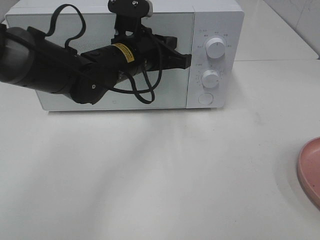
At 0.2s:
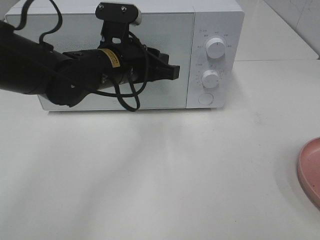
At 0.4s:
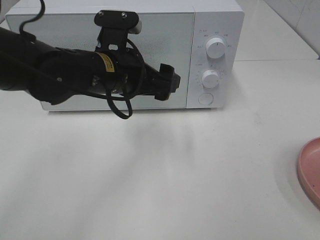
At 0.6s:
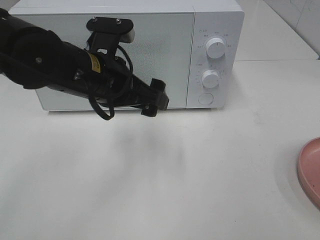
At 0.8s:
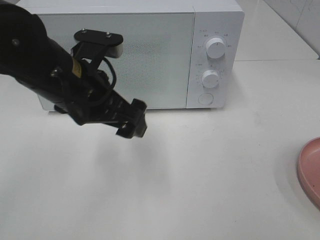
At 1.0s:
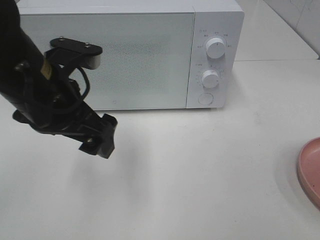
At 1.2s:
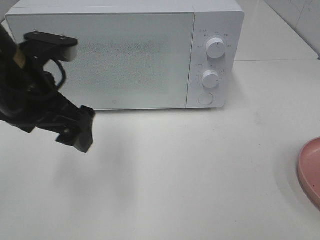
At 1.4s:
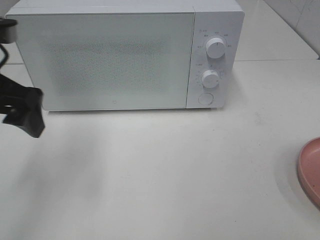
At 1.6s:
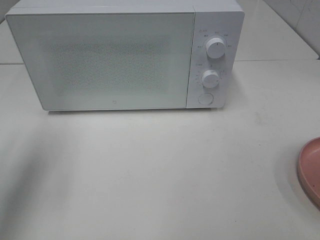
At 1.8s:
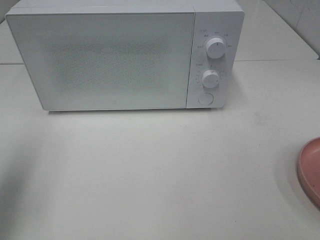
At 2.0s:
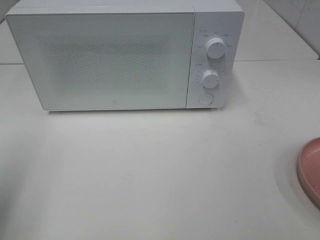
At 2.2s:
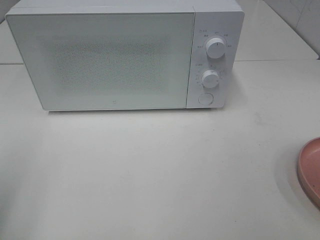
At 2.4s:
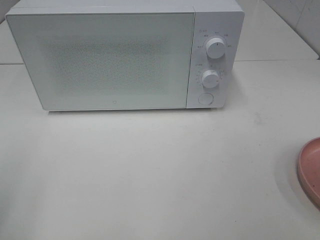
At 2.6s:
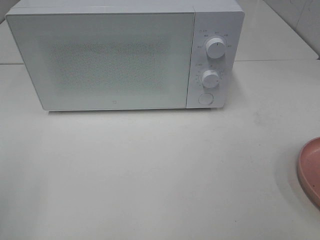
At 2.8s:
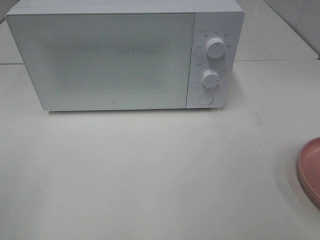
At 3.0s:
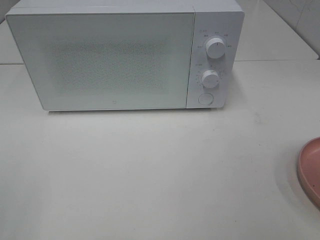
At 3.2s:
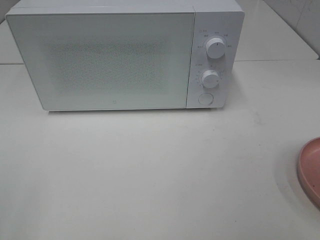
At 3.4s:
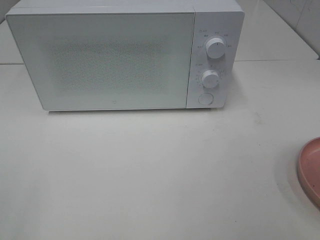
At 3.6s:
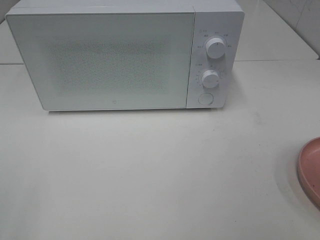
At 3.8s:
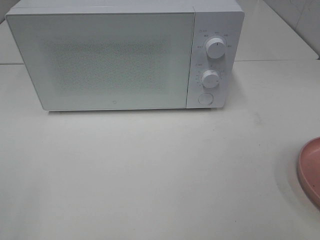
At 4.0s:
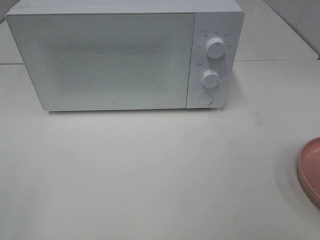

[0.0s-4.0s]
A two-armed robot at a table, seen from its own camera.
Task of the whole recording: Heat the burger.
0.0s to 1.4s: The left gripper moves to the left, backward and upward, some 20 cm, and opens its fingers.
1.4s to 2.6s: The left gripper goes roughly 20 cm backward and to the left.

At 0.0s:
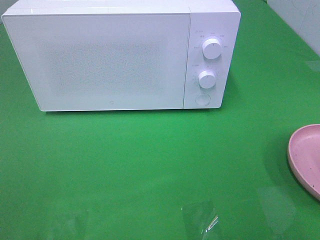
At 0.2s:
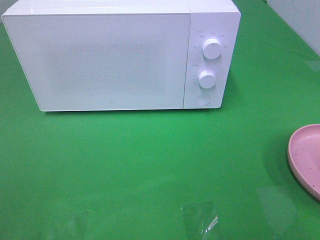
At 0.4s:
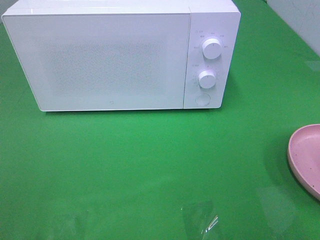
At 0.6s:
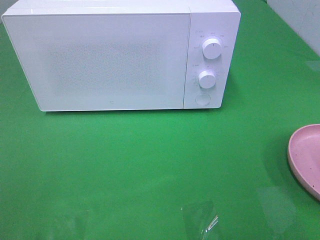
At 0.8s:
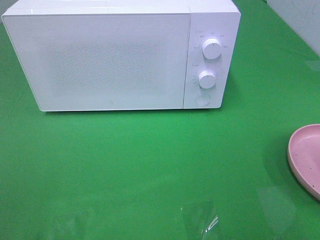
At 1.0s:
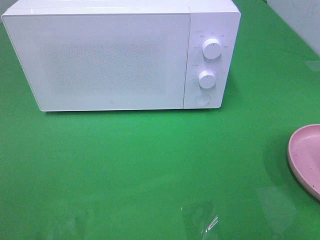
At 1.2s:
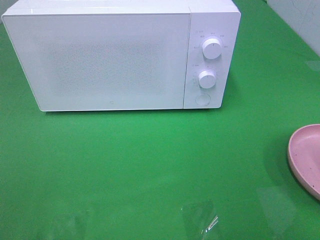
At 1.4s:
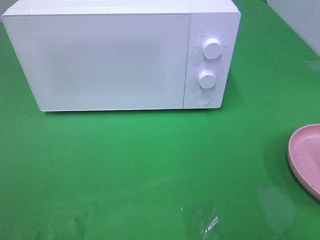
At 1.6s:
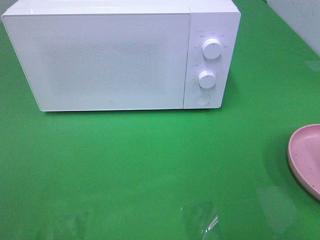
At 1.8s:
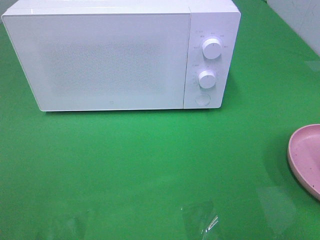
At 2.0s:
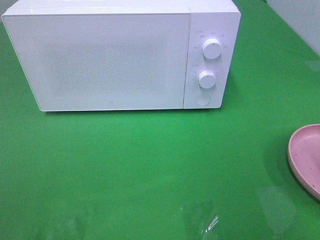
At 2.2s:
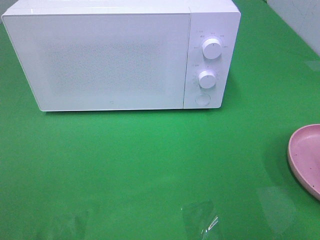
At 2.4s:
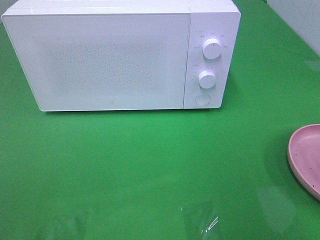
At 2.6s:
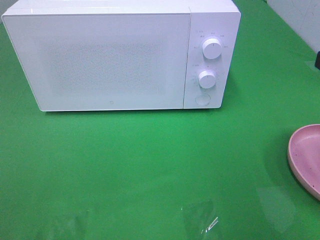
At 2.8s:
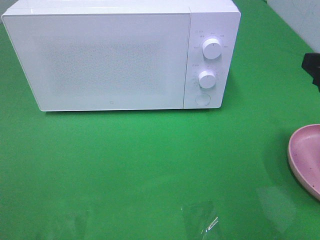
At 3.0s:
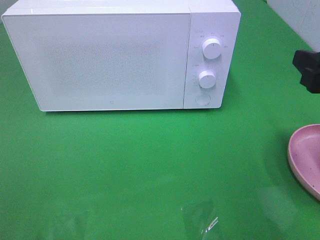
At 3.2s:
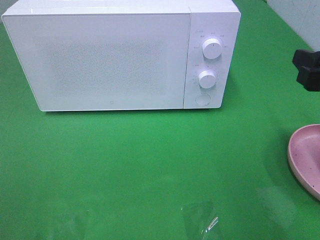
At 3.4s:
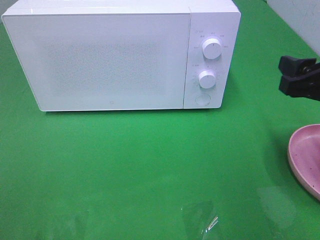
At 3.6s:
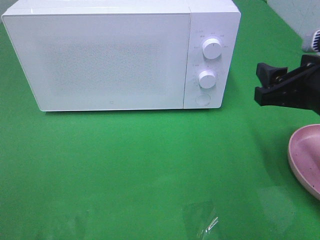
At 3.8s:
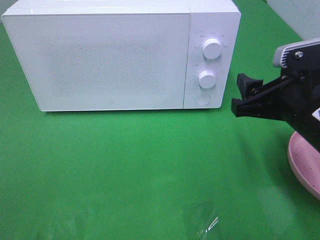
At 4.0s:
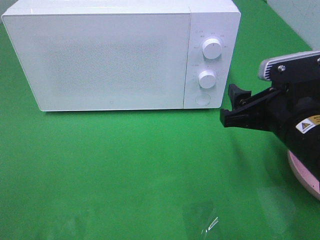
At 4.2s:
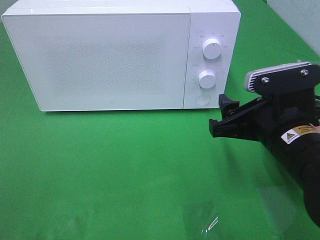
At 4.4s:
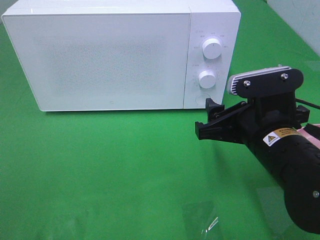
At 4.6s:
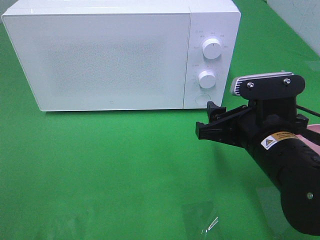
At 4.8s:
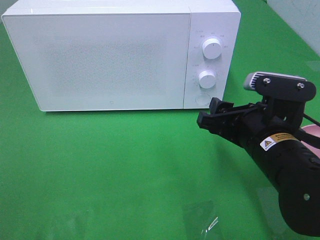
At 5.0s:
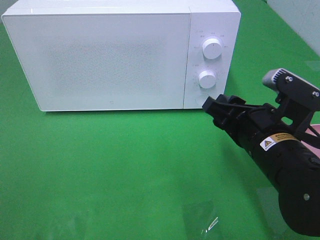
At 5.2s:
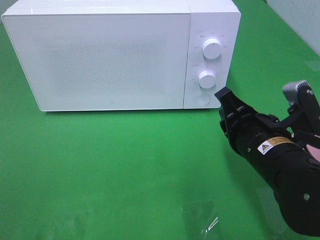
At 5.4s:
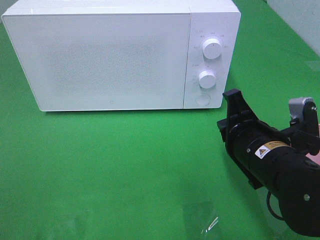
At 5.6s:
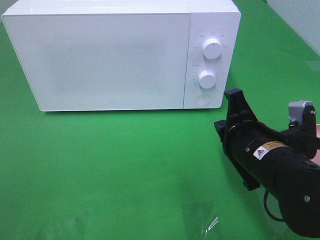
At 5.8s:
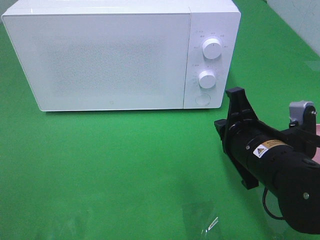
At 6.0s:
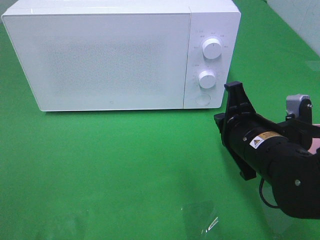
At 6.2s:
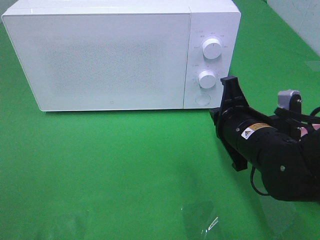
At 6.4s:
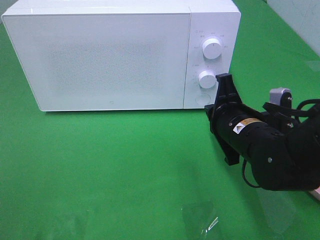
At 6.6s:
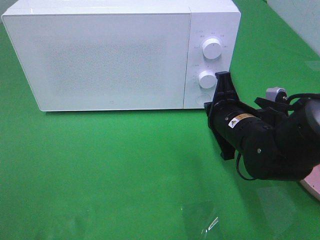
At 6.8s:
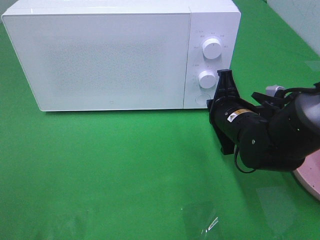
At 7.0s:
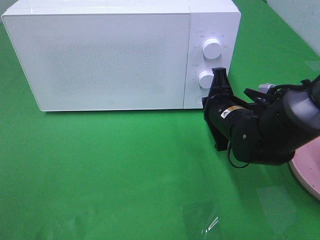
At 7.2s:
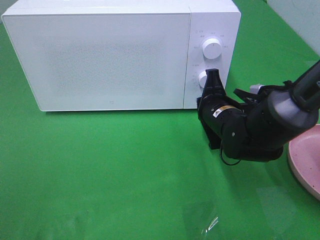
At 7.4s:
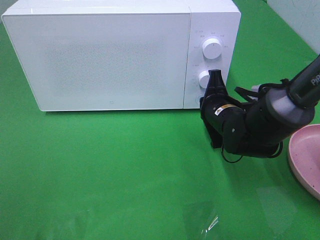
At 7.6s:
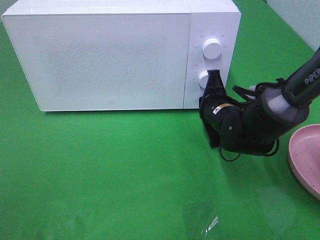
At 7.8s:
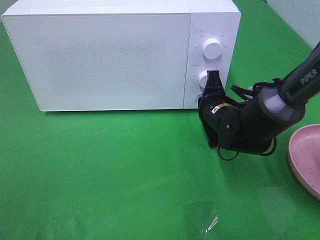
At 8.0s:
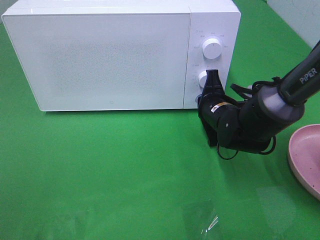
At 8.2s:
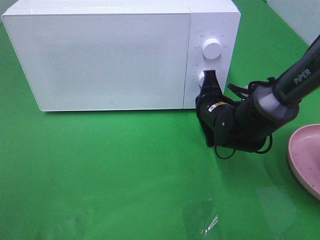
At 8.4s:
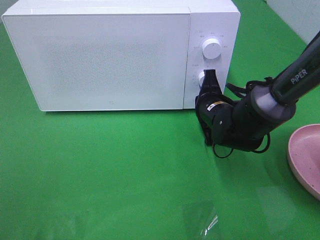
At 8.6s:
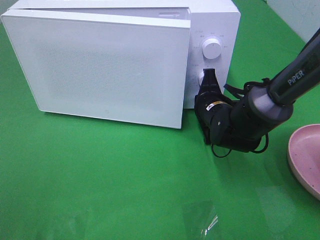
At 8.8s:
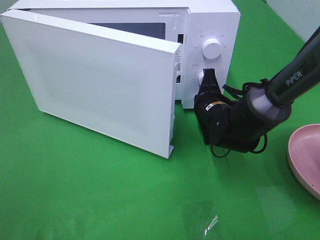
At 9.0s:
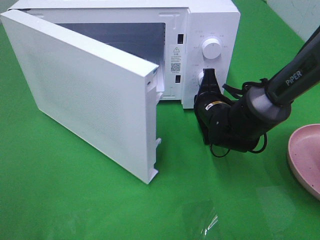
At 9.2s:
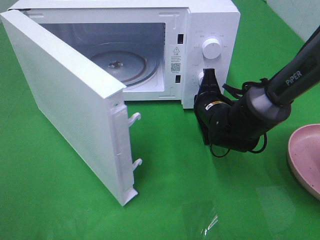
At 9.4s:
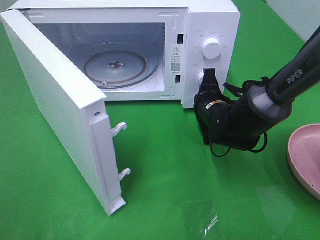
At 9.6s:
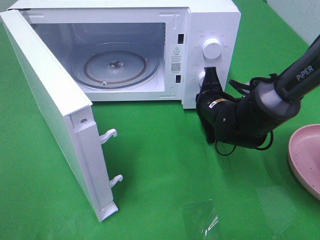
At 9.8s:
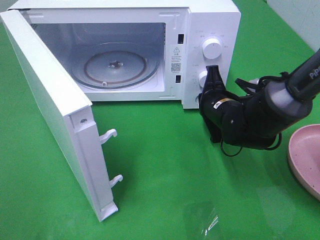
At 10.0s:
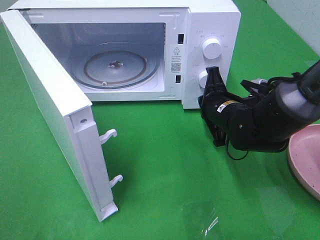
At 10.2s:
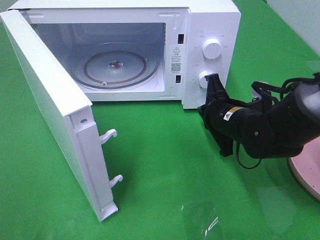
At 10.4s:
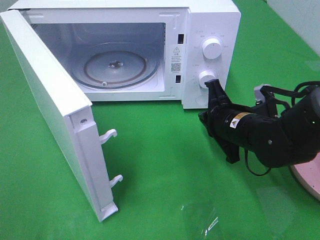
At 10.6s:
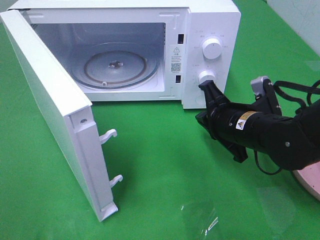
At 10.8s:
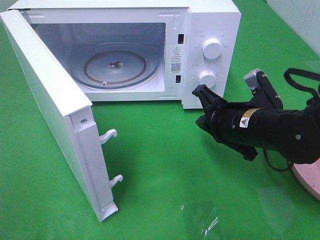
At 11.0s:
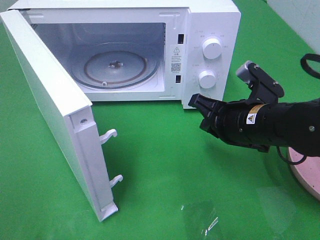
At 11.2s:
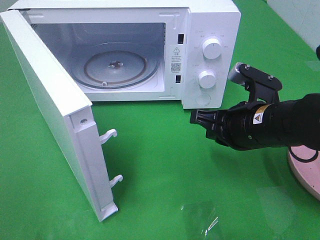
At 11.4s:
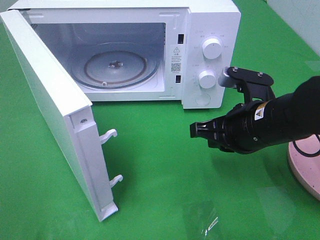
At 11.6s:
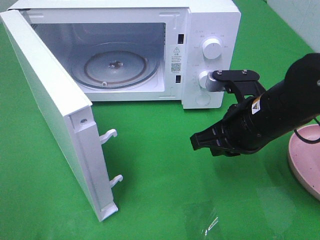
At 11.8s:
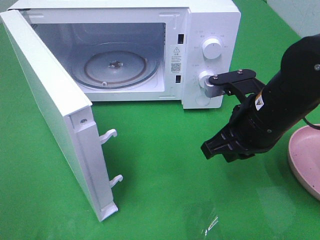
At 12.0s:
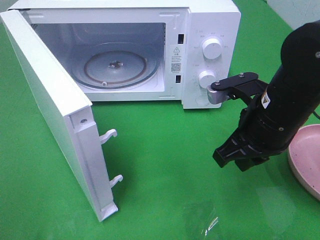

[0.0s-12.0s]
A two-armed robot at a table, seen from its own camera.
Task of the whole recording: Heat the burger.
Step, 0.0s to 10.0s: Right hand: press the switch.
1.6s to 3.0s: The right gripper travels forward and downward by roughly 15 cm.
3.0s to 4.4s: The right gripper moves to the left and downward, about 15 cm.
4.4s to 6.0s: The right gripper closes its fingers.
6.0s to 7.6s: The right gripper travels forward and downward by some 15 cm.
9.0s to 10.4s: The right gripper shifts about 5 cm backward.
10.4s to 12.0s: The right gripper is displaced upward by some 10 cm.

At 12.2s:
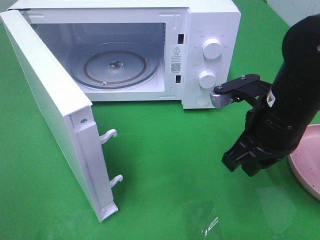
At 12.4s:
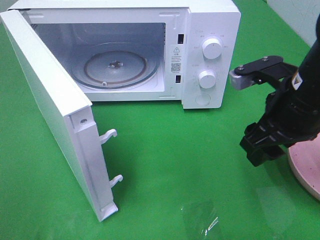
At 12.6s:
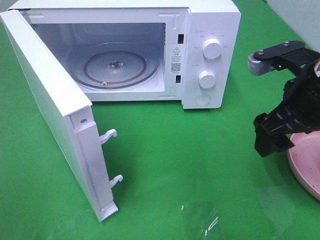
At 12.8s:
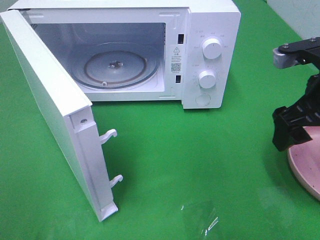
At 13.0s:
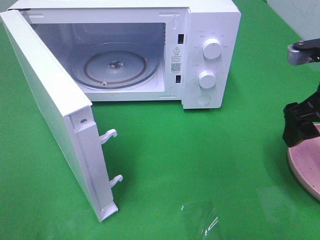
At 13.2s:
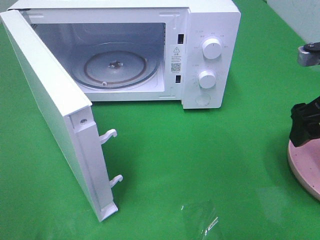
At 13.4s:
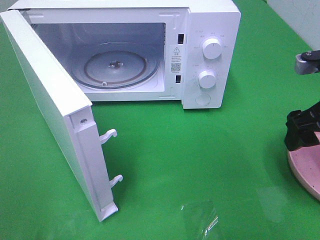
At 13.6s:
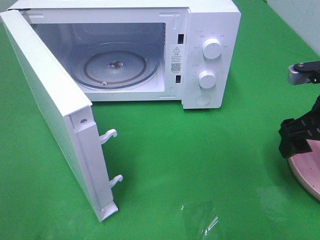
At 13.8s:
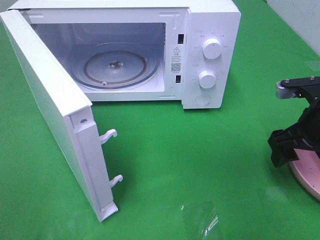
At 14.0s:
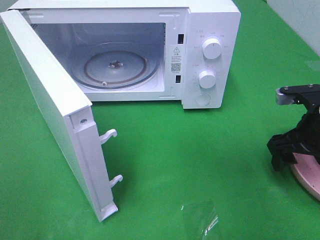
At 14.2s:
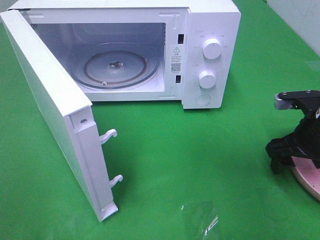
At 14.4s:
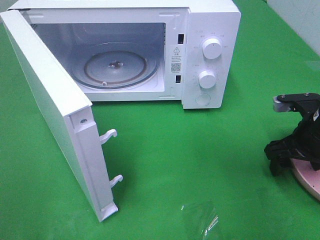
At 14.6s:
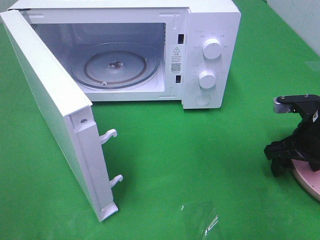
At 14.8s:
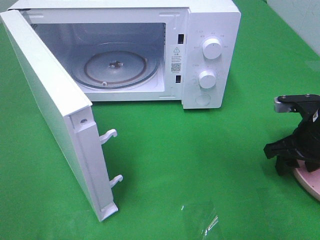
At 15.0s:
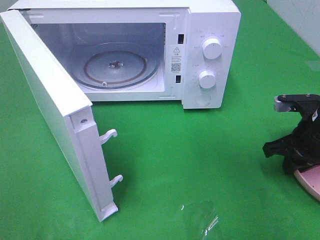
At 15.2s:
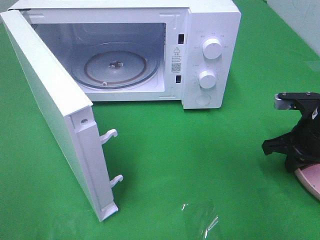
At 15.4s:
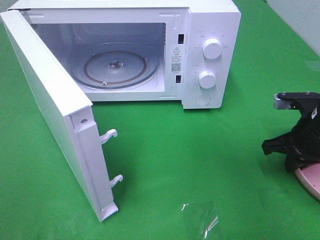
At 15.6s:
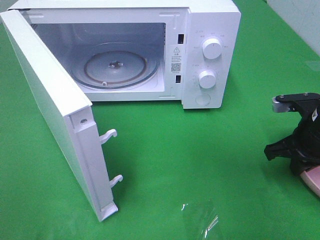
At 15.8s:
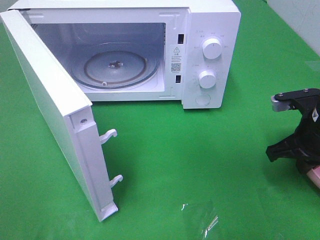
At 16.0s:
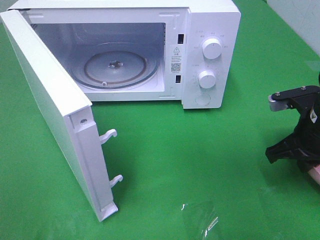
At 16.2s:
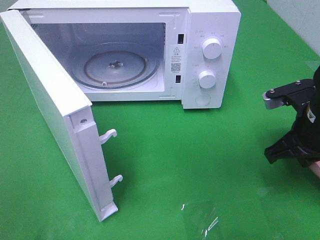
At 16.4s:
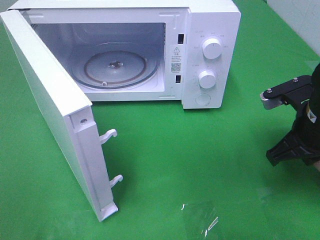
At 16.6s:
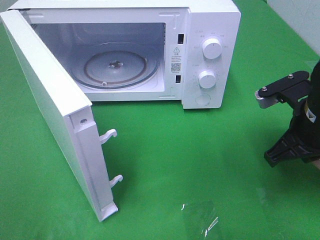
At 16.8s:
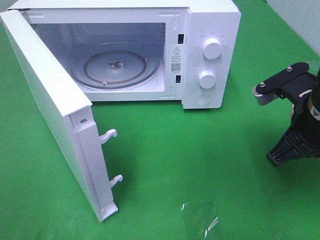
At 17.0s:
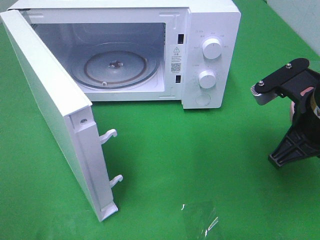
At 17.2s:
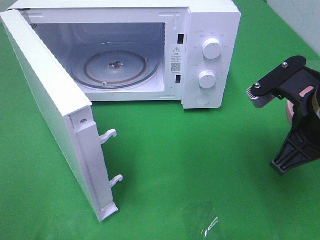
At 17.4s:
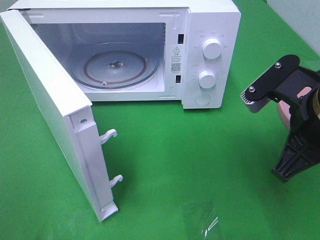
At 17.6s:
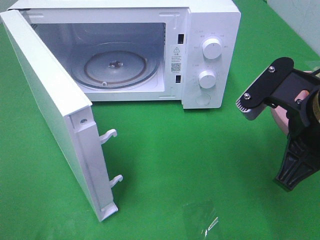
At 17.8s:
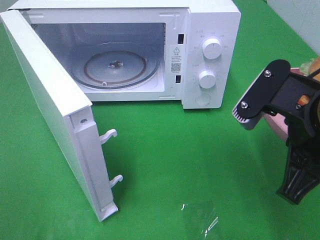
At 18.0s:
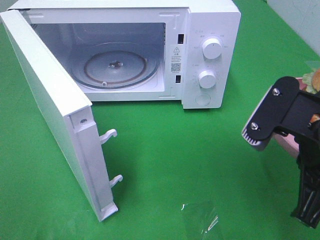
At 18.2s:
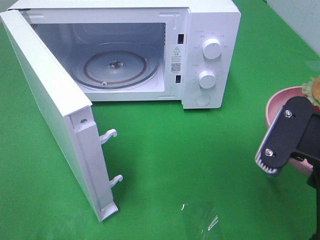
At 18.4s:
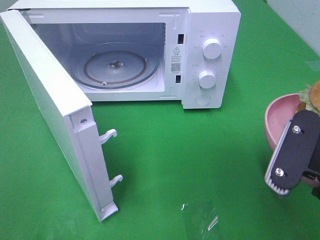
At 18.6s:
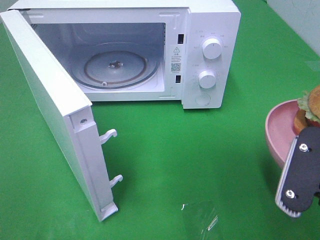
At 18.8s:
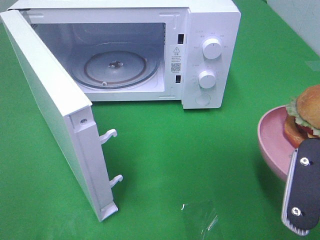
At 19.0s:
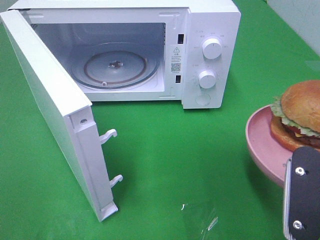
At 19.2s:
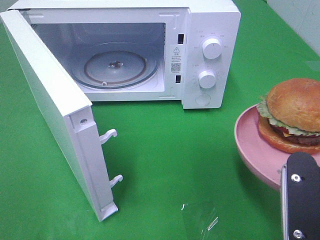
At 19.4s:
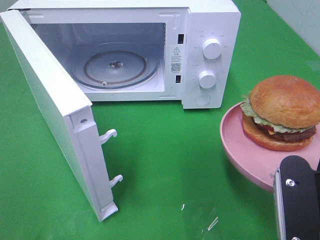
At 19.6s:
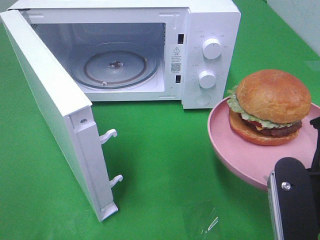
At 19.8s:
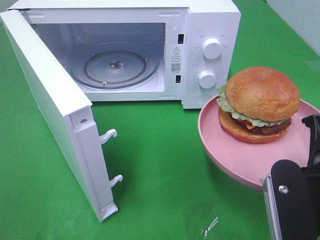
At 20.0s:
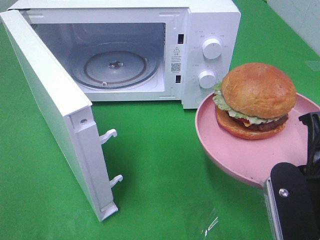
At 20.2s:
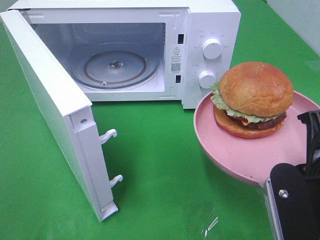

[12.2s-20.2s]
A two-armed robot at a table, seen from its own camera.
Task of the whole recording: Heat the burger.
Step, 12.2s to 15.2s: Right hand: grab the plate with the hamburger.
12.2s to 13.8s: The right gripper travels to the right by about 10 cm, and opens up.
13.8s to 15.4s: The right gripper closes up.
15.4s to 17.0s: The right gripper heads upward, to the left and backward, covering approximately 15 cm.
17.0s to 18.6s: The right gripper shifts roughly 10 cm backward.
